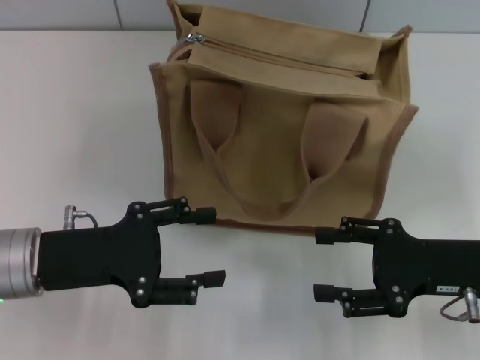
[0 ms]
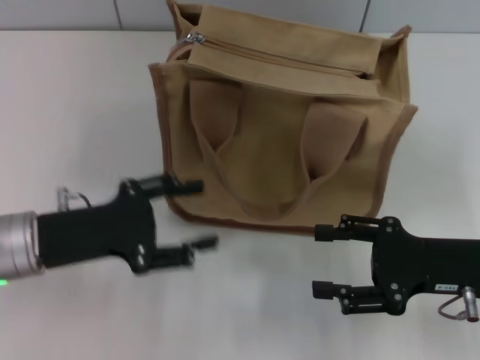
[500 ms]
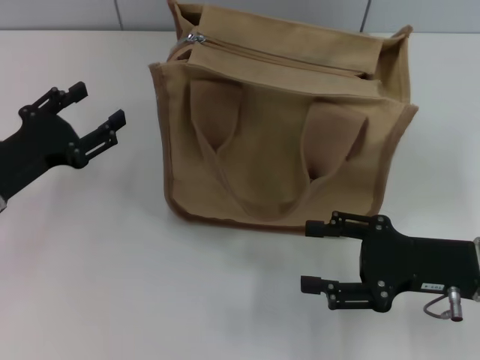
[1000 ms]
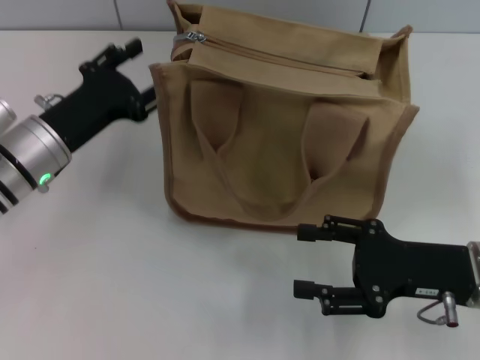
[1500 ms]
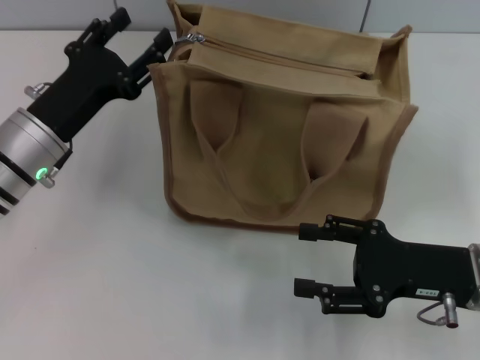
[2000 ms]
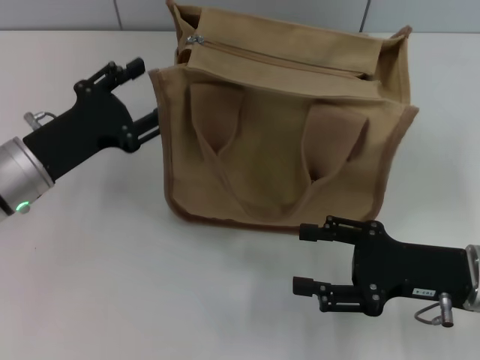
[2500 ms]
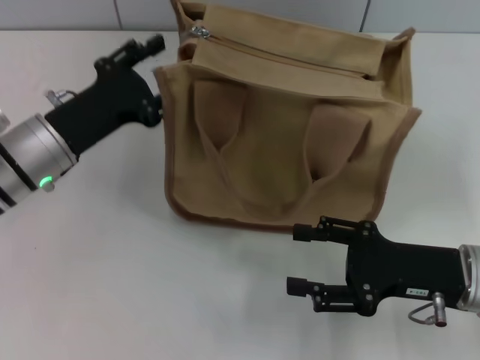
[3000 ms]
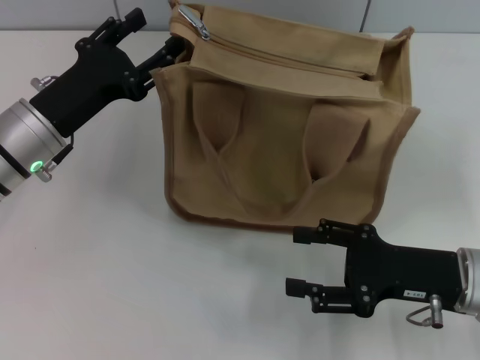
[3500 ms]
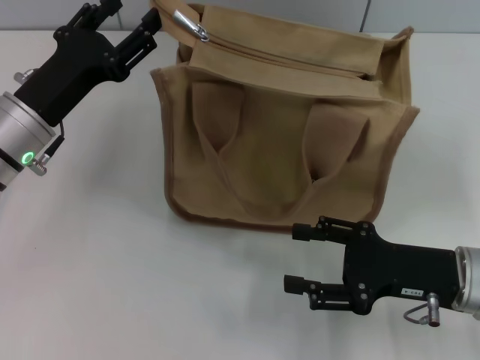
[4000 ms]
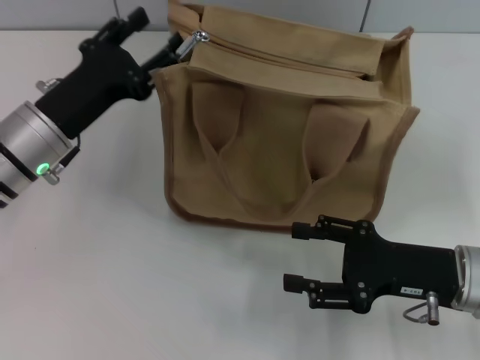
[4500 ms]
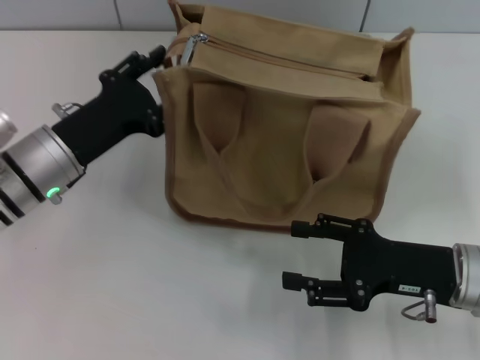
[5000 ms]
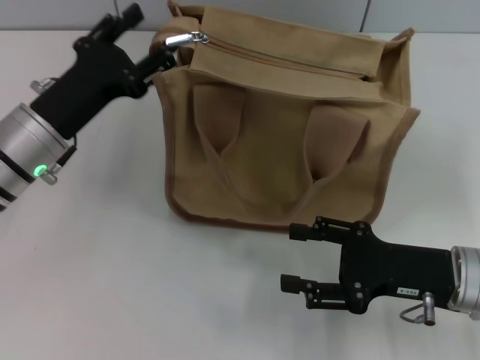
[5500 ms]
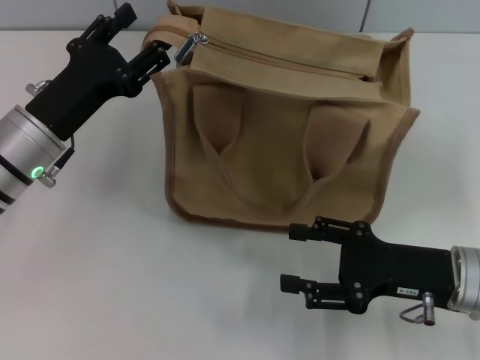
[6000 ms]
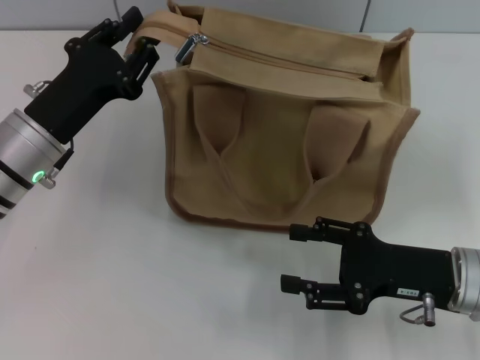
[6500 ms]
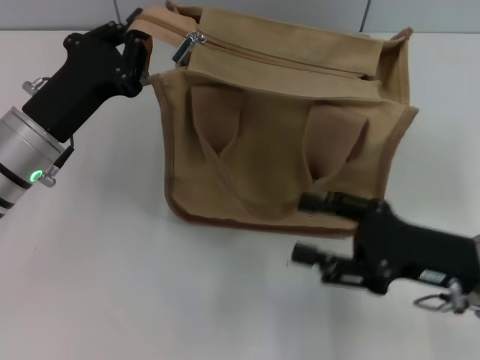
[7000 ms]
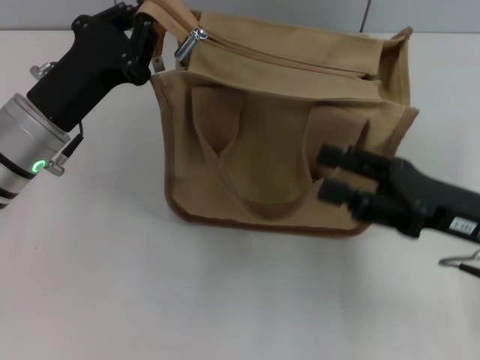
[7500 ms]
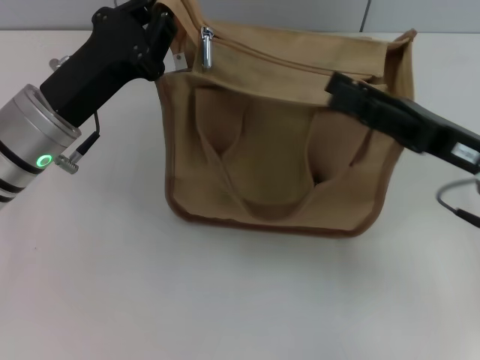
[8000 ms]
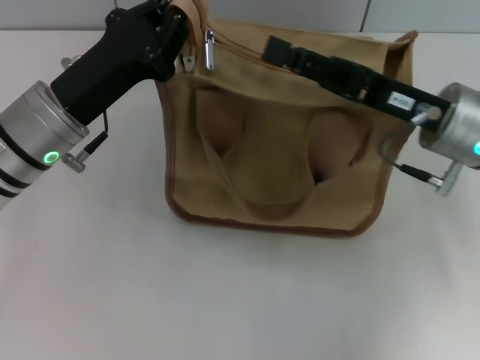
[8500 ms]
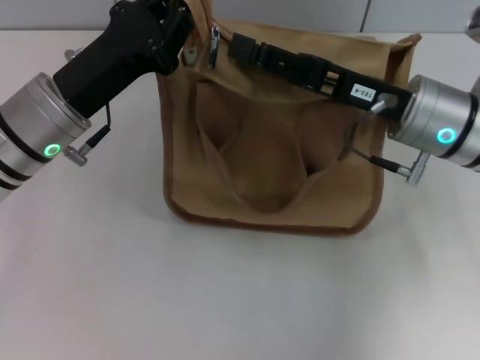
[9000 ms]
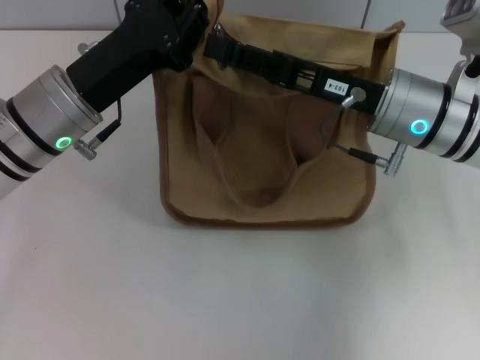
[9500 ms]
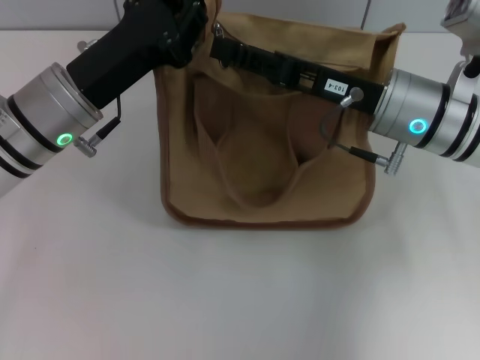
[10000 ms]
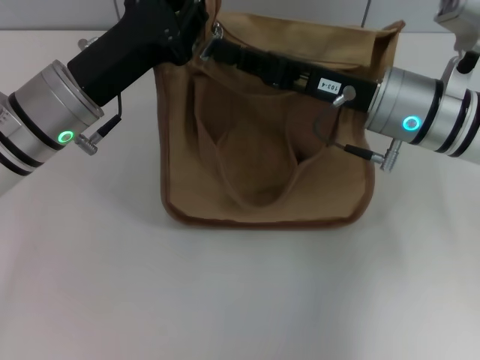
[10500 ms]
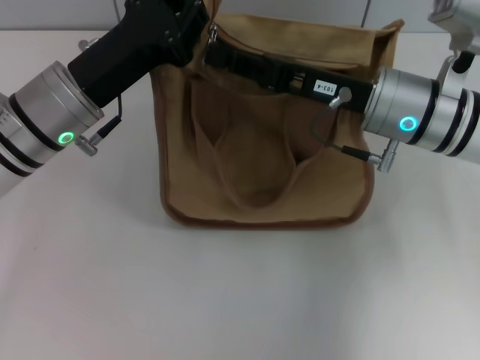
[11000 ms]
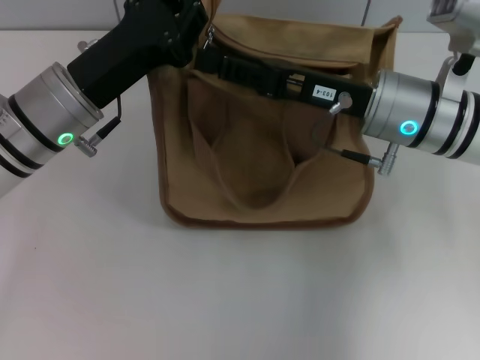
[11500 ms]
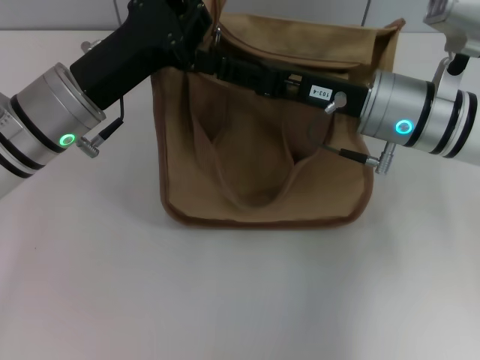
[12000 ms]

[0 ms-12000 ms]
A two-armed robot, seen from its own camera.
0 ms to 2000 ms: The left gripper travels forward by approximately 10 cm.
2000 ms to 6000 ms: There are only small adjustments of the grippers.
6000 ms to 8000 ms: The left gripper closes, while the right gripper heads upward, covering some 5 cm.
8000 ms to 10000 ms: The right gripper heads to the left and forward, covering about 10 cm.
10000 ms to 12000 ms: The right gripper closes, then reopens.

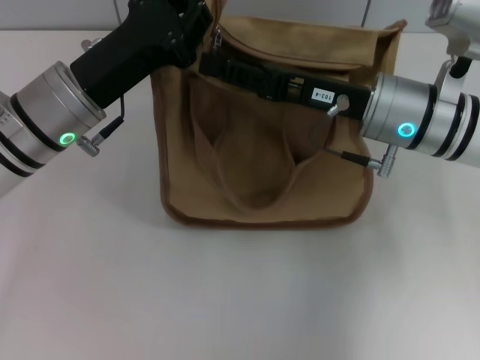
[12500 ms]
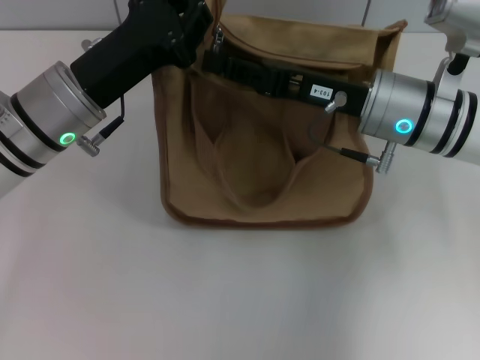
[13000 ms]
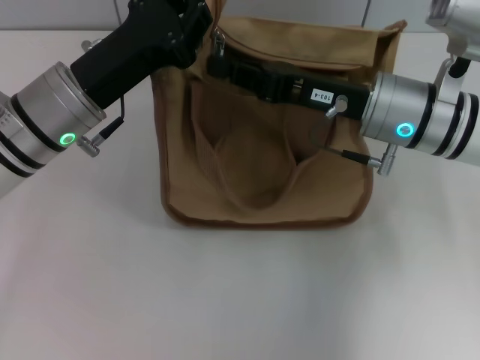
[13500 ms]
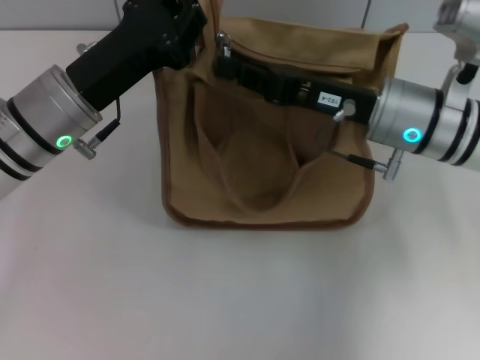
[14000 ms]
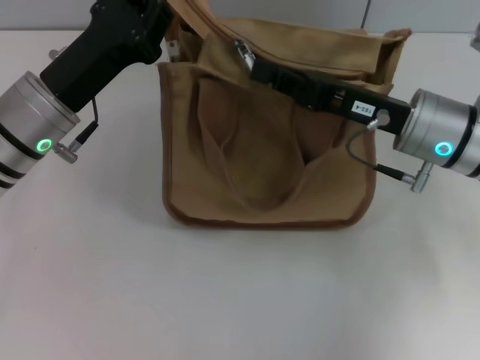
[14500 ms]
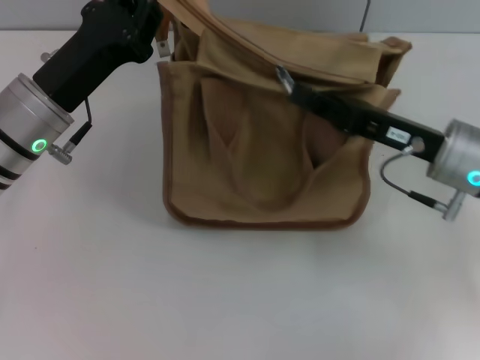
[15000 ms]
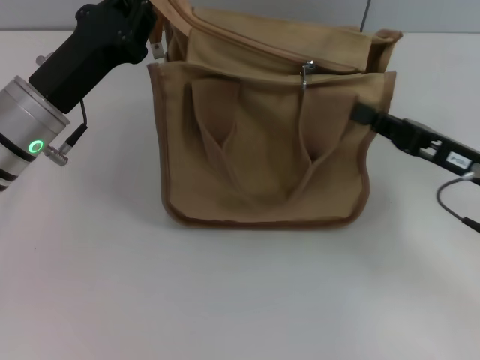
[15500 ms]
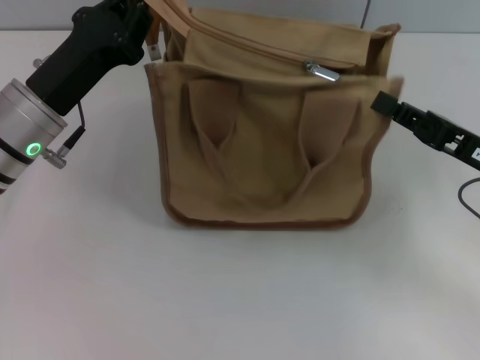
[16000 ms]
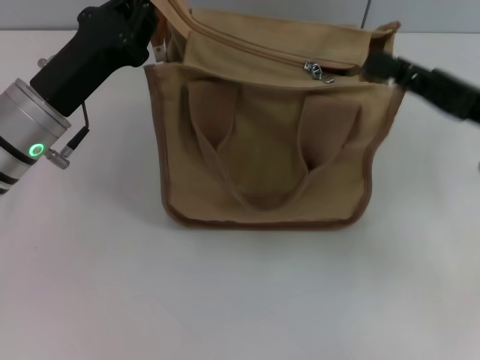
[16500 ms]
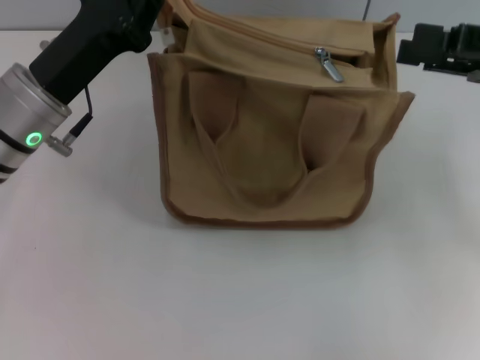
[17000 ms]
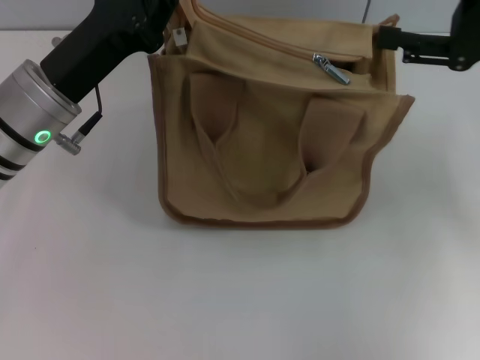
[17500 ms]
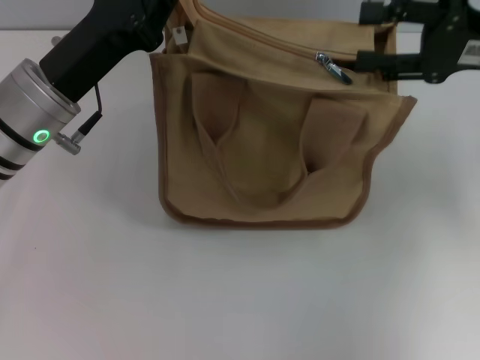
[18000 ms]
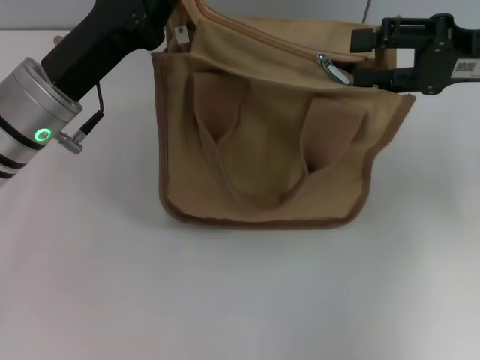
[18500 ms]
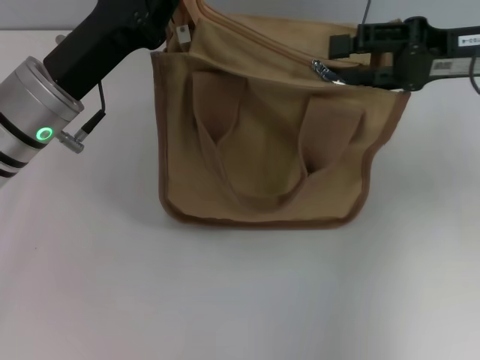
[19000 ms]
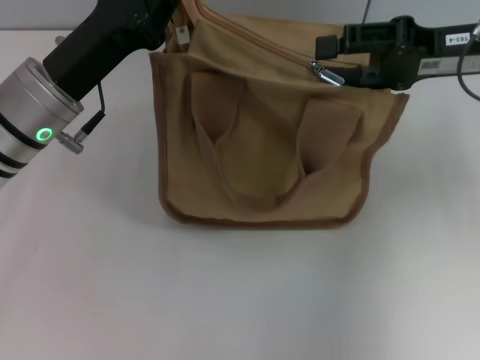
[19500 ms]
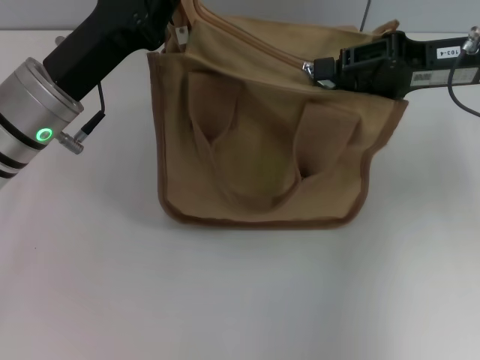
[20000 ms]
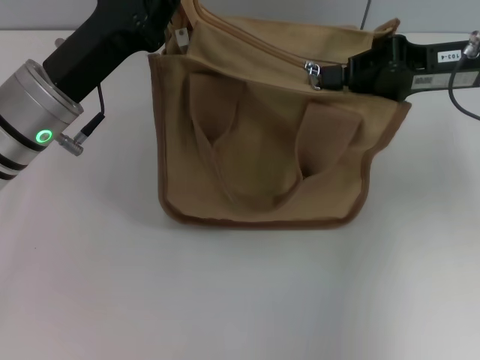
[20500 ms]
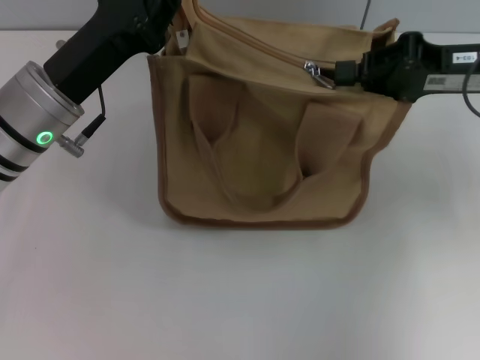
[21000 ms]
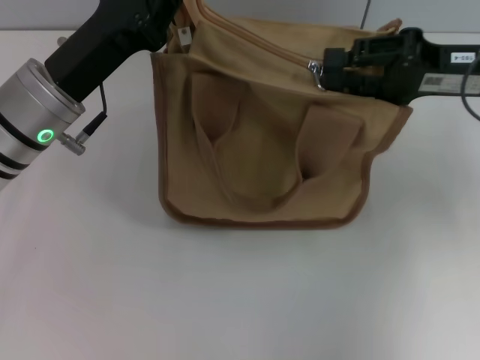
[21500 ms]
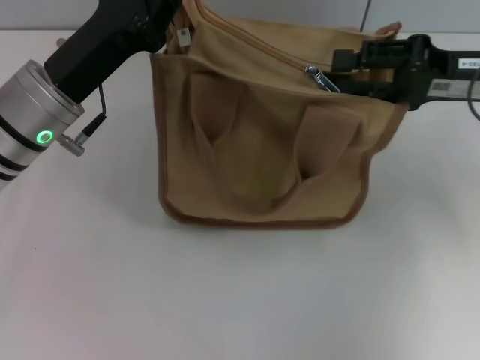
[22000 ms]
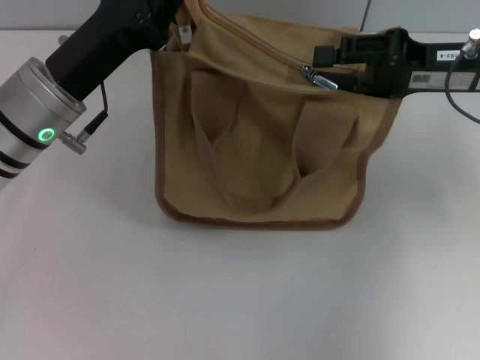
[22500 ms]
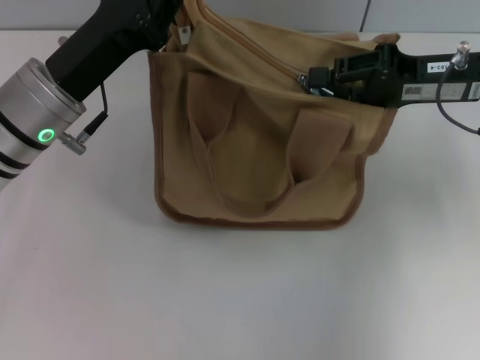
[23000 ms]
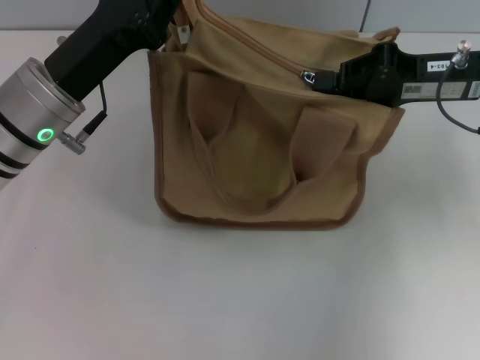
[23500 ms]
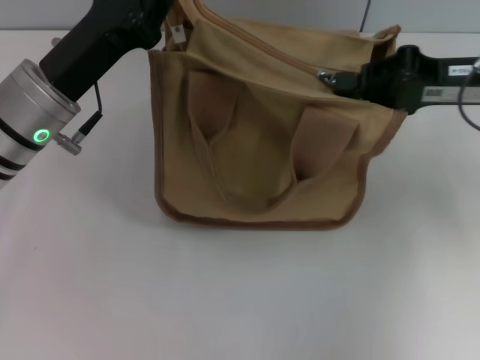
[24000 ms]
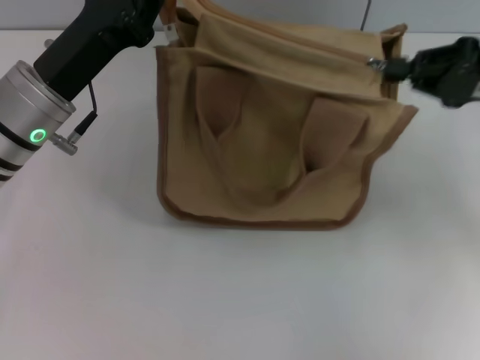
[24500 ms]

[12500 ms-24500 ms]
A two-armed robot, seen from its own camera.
12500 ms to 14500 ms: The right gripper closes.
14500 ms to 16500 ms: The right gripper heads to the right, covering about 10 cm.
16500 ms to 18500 ms: The right gripper moves forward and upward, roughly 10 cm, and opens its fingers.
18500 ms to 20500 ms: The right gripper closes its fingers.
20500 ms to 22500 ms: The right gripper opens.
22500 ms to 24500 ms: The right gripper goes approximately 5 cm to the right, and closes its fingers.

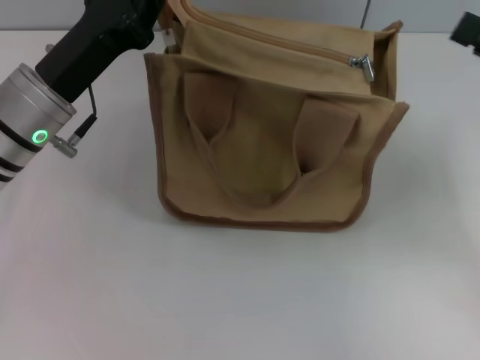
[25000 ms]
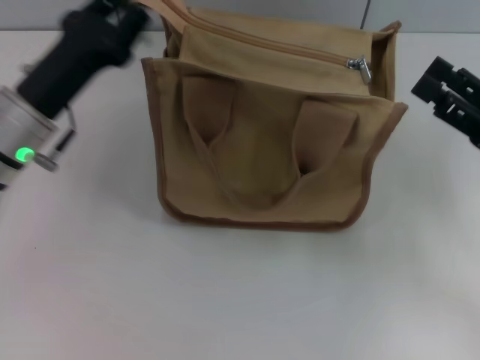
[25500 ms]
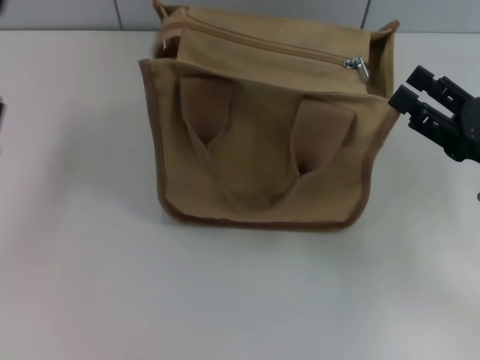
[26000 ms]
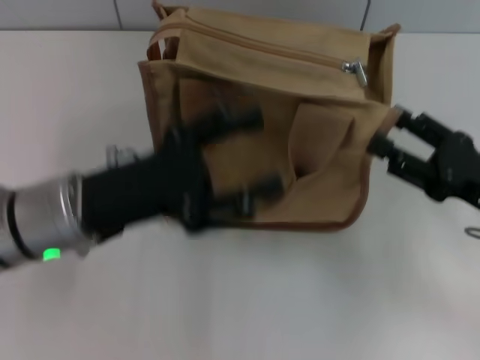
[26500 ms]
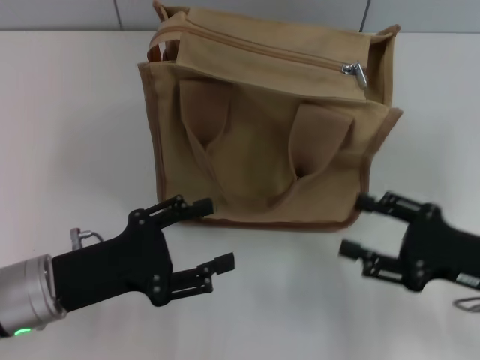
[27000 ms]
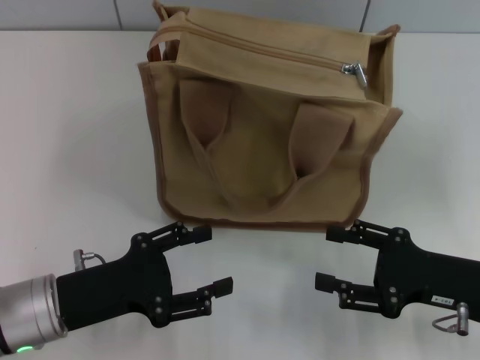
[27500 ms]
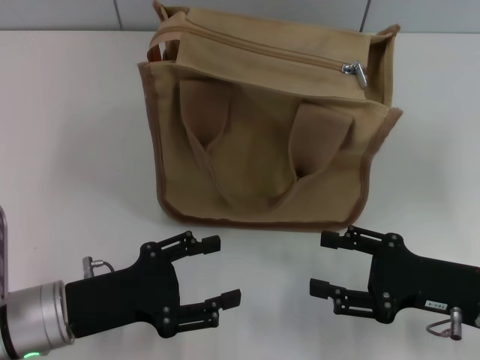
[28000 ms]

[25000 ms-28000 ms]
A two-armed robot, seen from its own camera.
25000 ms to 26500 ms: The right gripper moves downward, to the left and backward, some 10 cm, and opens up; the left gripper moves backward, about 5 cm, and opens up.
26500 ms to 28000 ms: The left gripper heads downward and backward, covering approximately 10 cm. Meanwhile the right gripper changes place by approximately 5 cm.
